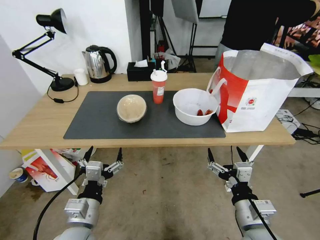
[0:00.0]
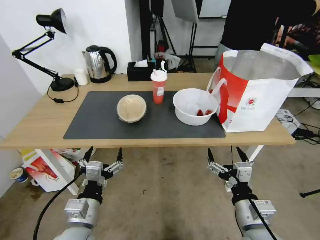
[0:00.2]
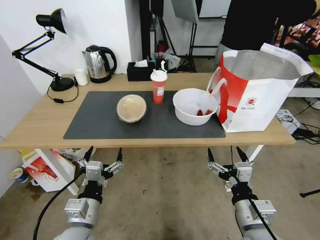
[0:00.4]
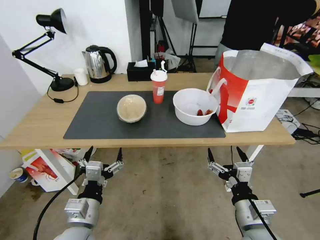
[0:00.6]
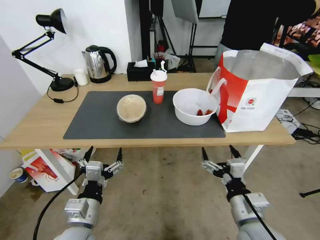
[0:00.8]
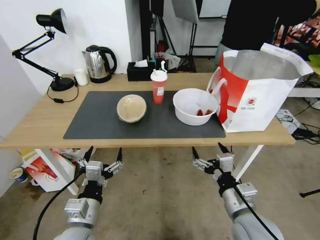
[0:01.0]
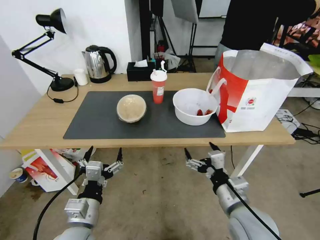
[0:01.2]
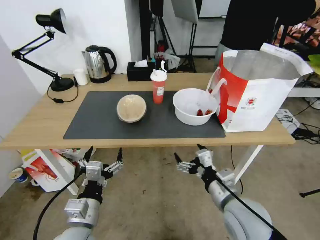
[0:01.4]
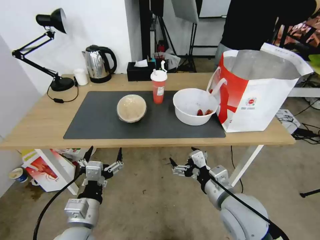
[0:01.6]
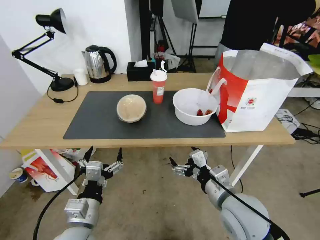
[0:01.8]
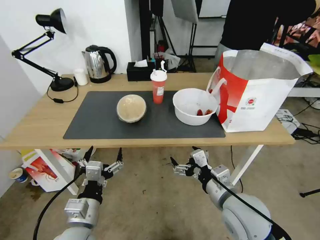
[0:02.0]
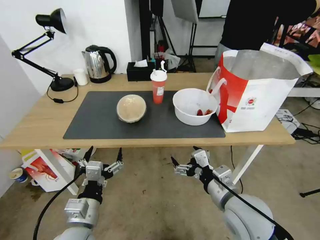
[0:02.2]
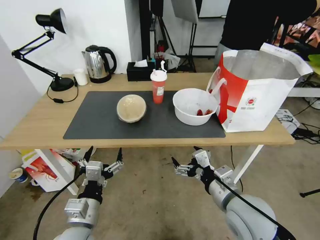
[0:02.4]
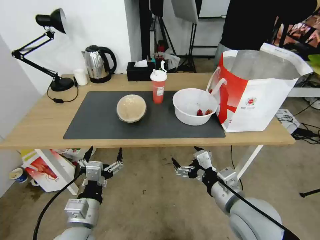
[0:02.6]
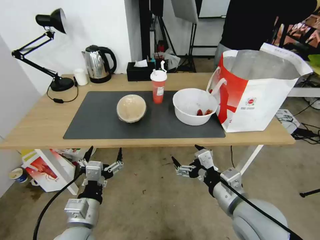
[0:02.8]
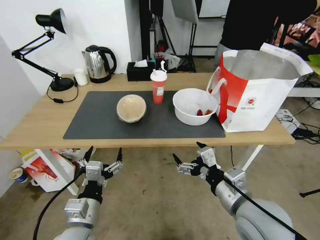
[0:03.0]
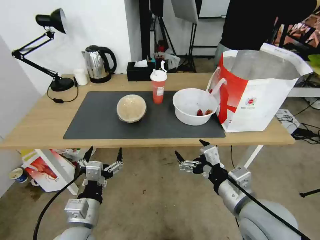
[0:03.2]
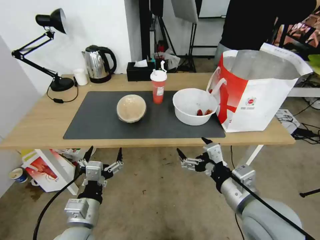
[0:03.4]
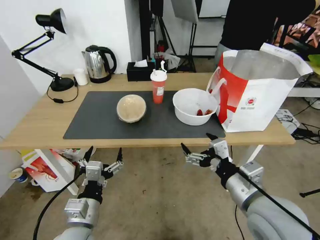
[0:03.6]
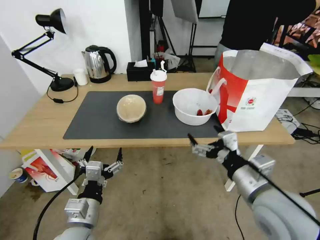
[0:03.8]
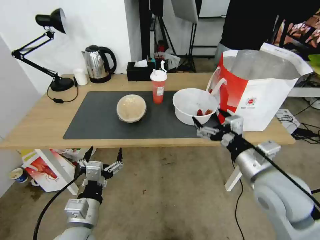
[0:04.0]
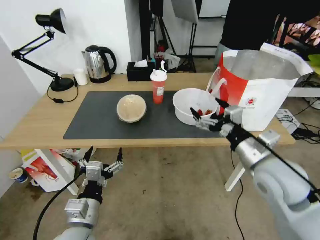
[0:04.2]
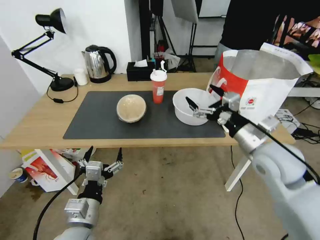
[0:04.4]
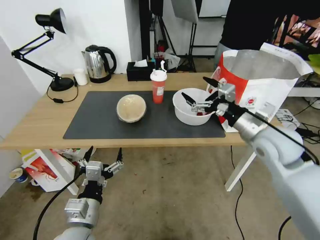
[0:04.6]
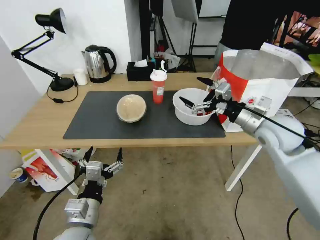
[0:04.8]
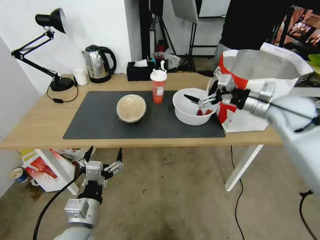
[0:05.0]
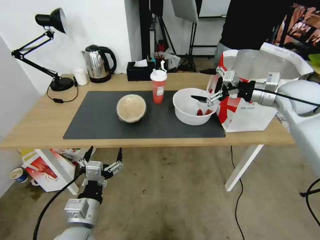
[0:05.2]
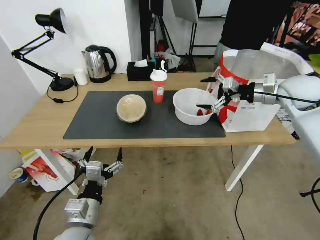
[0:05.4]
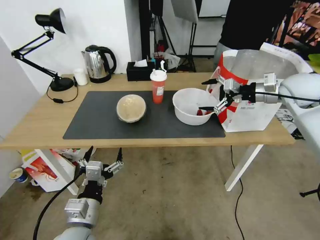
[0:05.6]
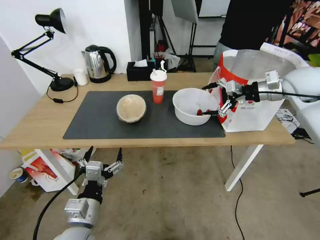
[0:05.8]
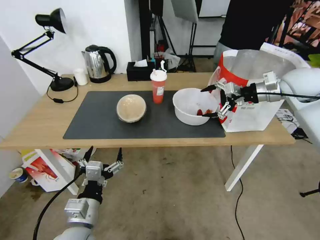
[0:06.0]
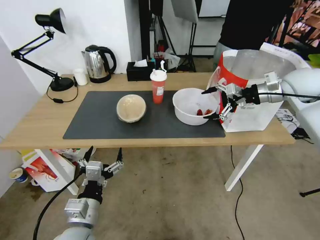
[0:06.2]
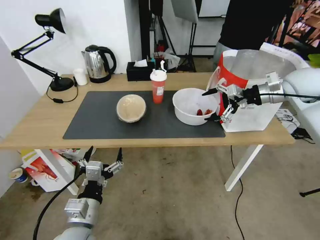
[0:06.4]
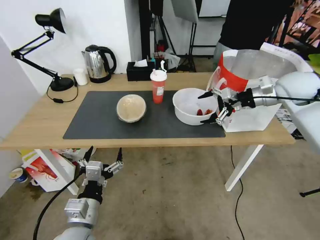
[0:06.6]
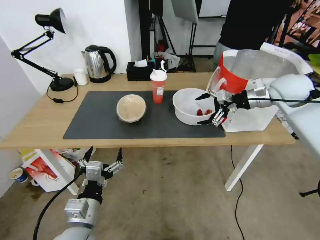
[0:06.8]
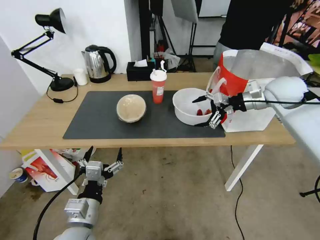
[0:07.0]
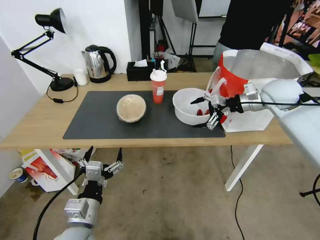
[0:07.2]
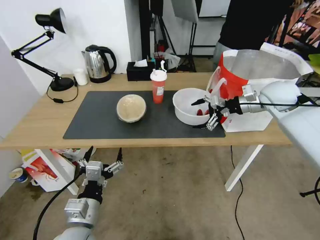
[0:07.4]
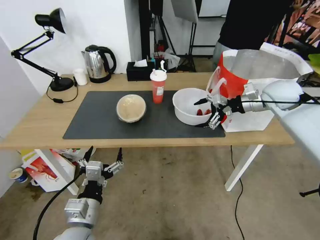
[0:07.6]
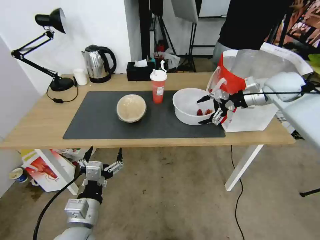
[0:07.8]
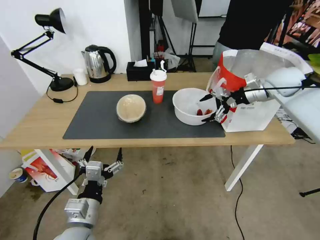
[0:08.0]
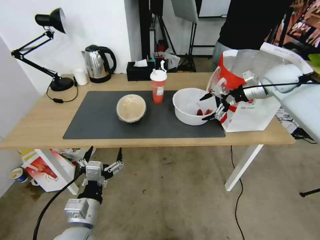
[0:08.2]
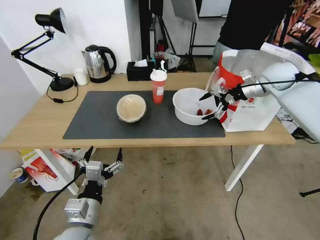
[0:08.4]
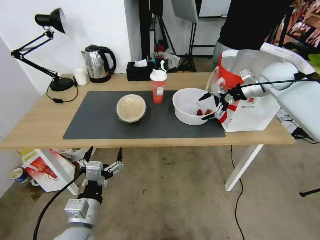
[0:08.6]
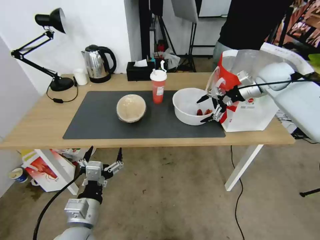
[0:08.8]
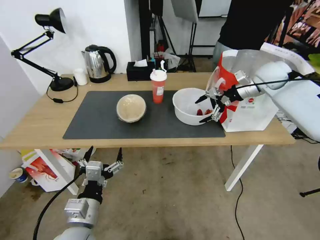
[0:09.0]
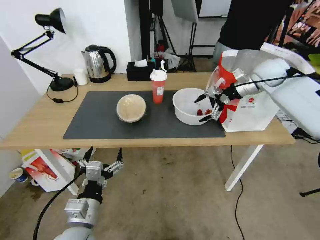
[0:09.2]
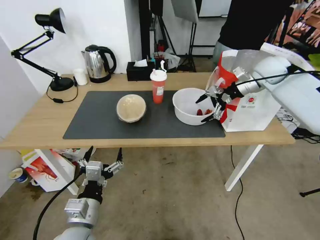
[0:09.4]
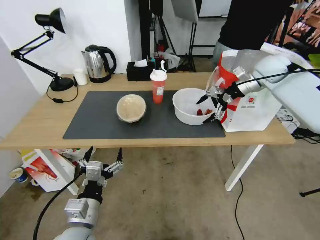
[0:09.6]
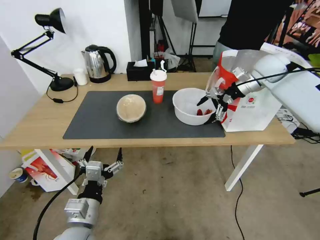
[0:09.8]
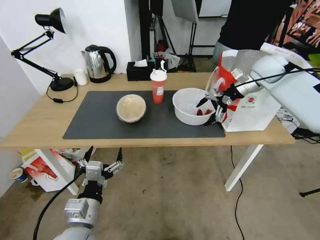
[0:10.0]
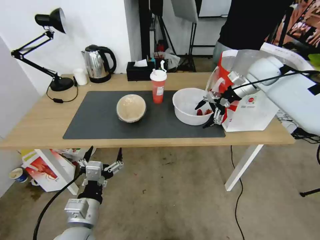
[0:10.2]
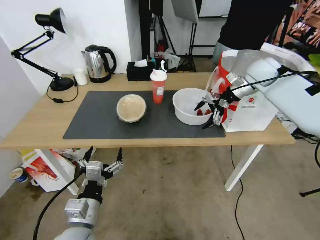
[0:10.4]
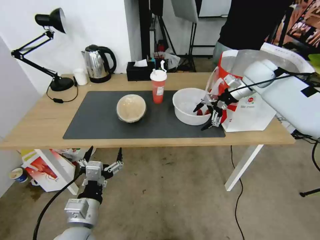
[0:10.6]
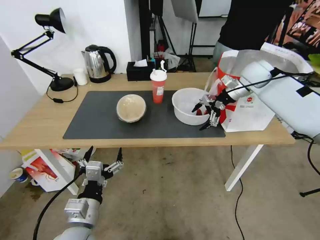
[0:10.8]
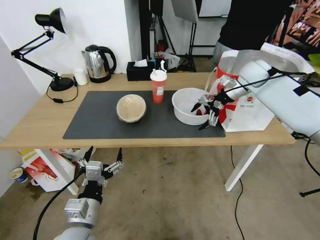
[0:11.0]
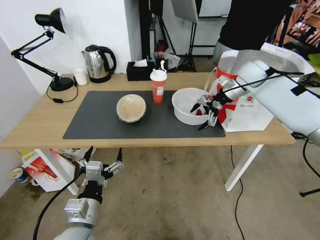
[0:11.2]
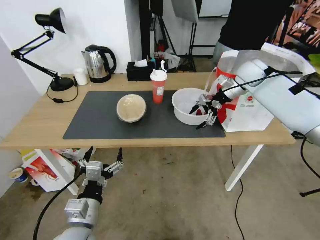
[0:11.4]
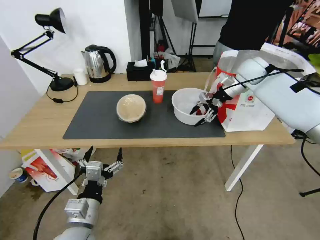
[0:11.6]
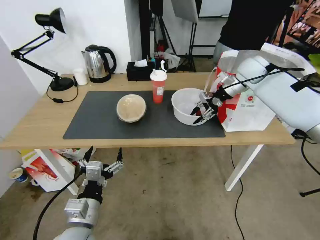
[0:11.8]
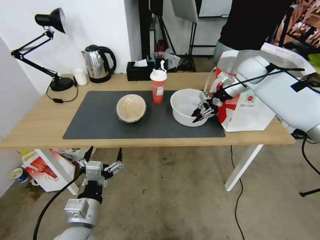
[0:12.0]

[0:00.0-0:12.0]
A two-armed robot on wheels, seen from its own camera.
Task of the whole recording: Pick up the trash from the table and place it into the takeout bag.
0:01.6 to 0:03.0: The right gripper shifts by some 5 cm.
0:03.0 to 0:04.4: The right gripper shifts roughly 15 cm forward, to the right and upward.
0:04.4 to 0:06.0: The right gripper shifts some 25 cm forward, to the right and upward.
0:06.0 to 0:07.6: The right gripper shifts by roughly 5 cm.
0:07.6 to 0:09.0: The right gripper is displaced forward by about 5 cm.
0:09.0 to 0:10.4: There are only small adjustments of the grippers.
0:10.4 to 0:12.0: The right gripper closes up.

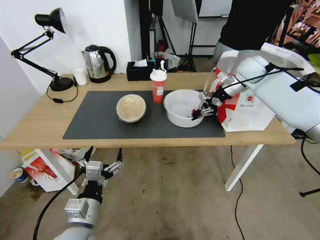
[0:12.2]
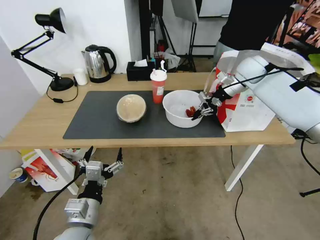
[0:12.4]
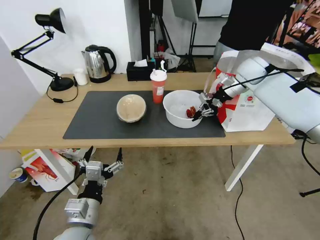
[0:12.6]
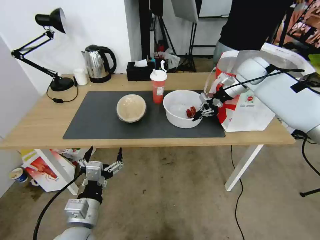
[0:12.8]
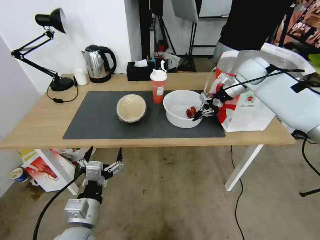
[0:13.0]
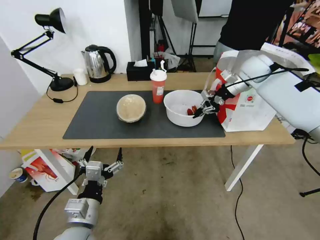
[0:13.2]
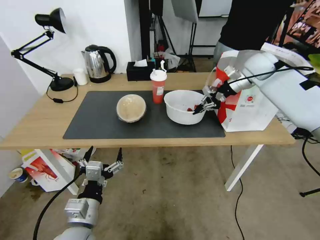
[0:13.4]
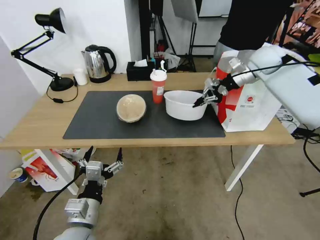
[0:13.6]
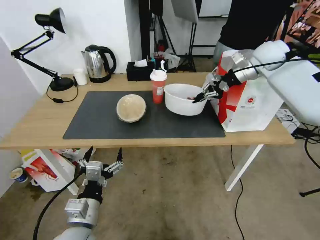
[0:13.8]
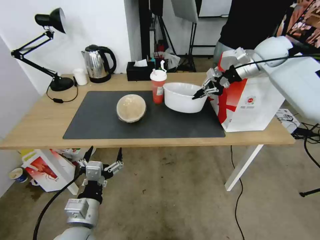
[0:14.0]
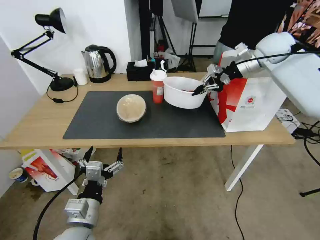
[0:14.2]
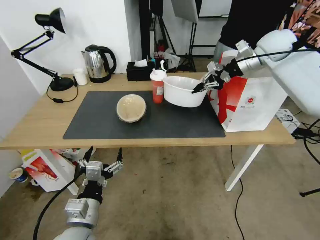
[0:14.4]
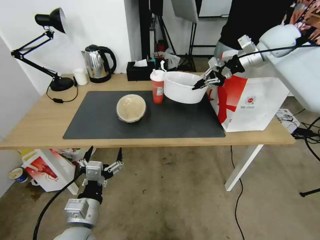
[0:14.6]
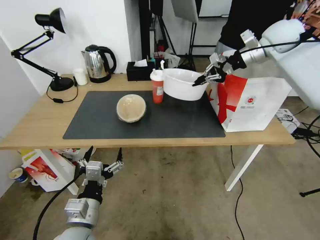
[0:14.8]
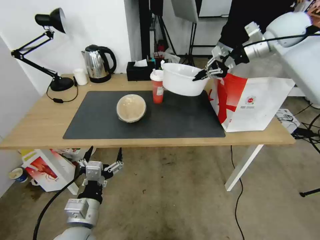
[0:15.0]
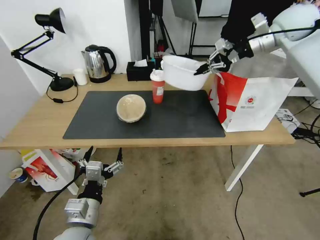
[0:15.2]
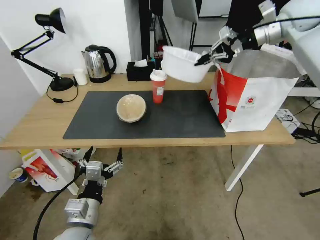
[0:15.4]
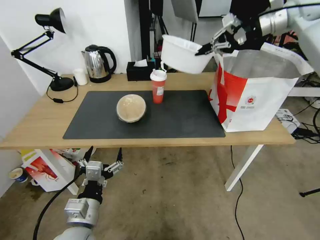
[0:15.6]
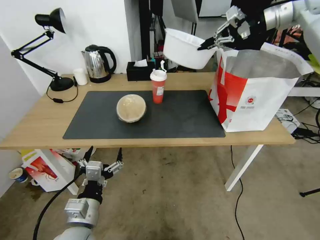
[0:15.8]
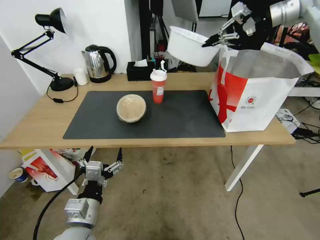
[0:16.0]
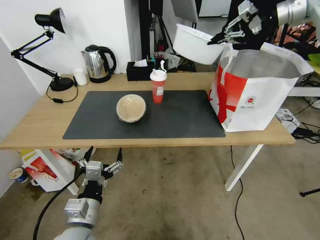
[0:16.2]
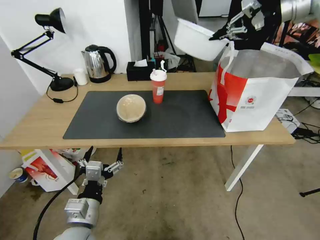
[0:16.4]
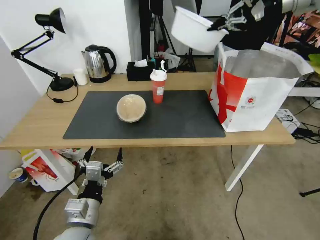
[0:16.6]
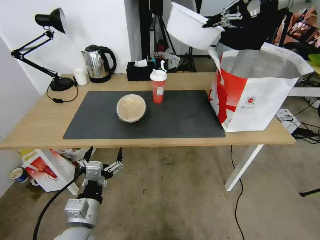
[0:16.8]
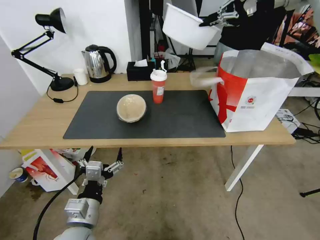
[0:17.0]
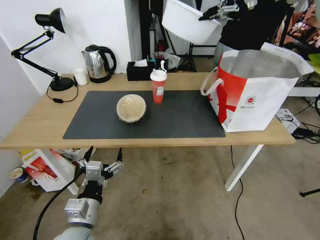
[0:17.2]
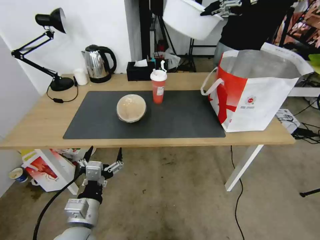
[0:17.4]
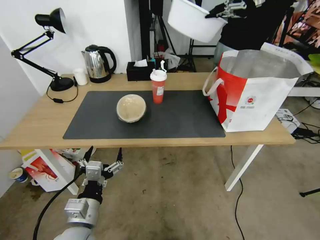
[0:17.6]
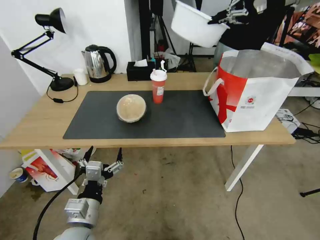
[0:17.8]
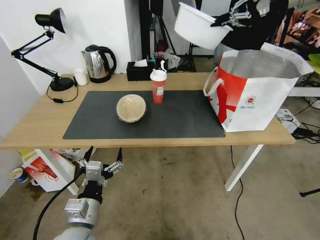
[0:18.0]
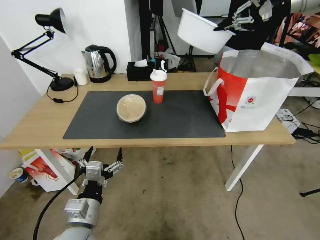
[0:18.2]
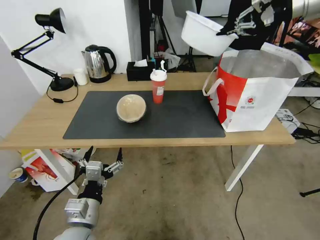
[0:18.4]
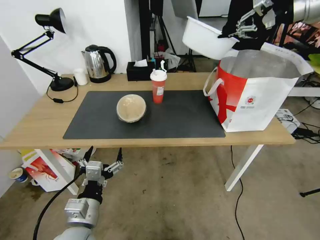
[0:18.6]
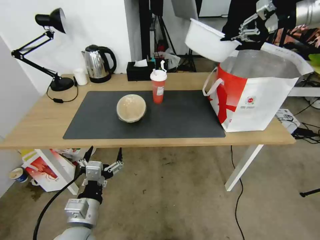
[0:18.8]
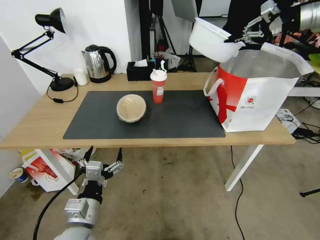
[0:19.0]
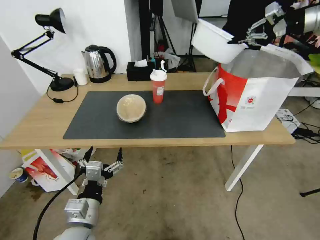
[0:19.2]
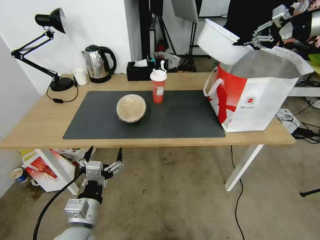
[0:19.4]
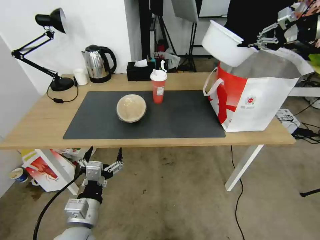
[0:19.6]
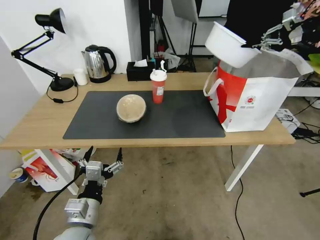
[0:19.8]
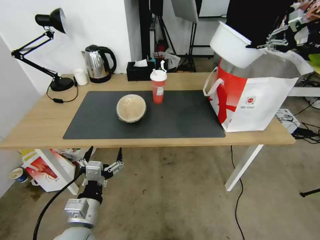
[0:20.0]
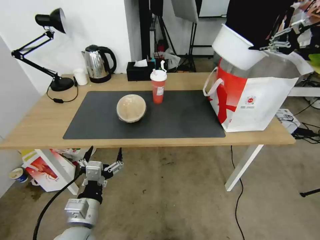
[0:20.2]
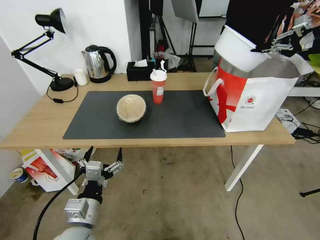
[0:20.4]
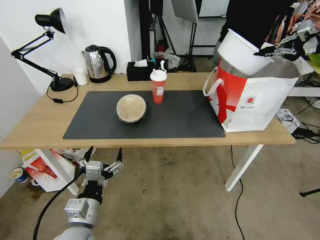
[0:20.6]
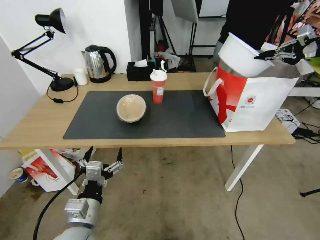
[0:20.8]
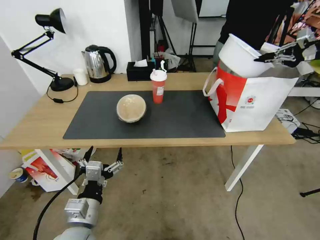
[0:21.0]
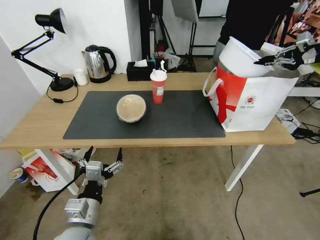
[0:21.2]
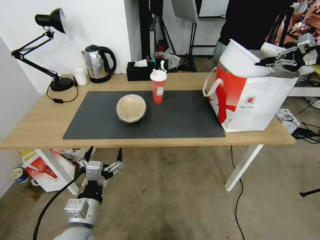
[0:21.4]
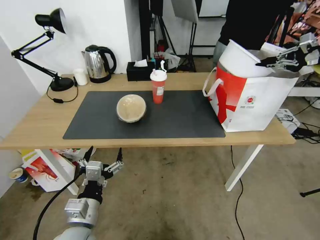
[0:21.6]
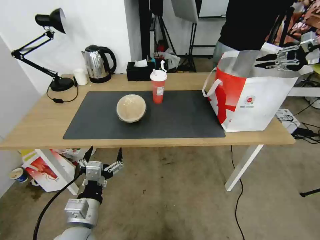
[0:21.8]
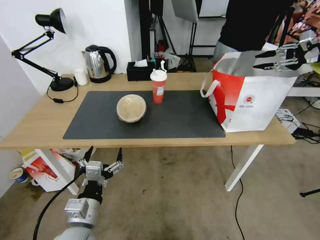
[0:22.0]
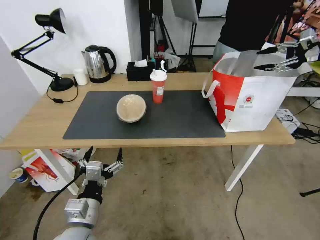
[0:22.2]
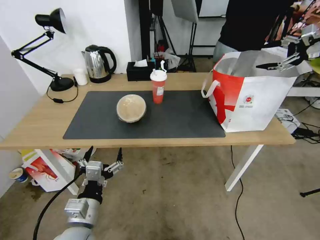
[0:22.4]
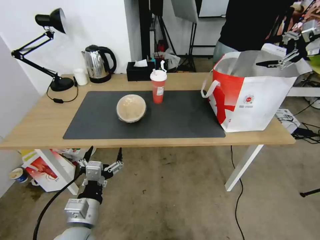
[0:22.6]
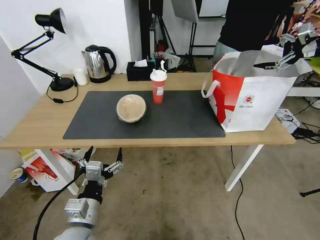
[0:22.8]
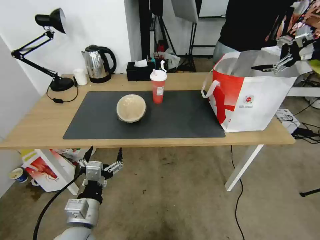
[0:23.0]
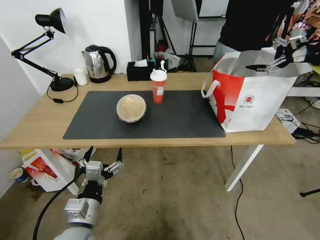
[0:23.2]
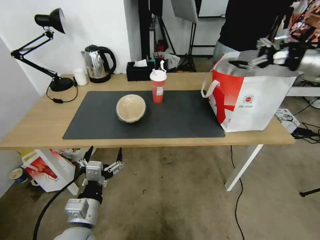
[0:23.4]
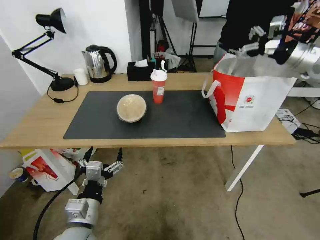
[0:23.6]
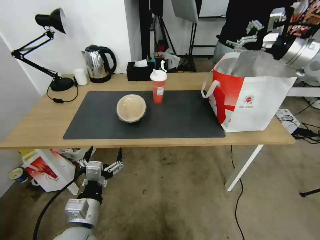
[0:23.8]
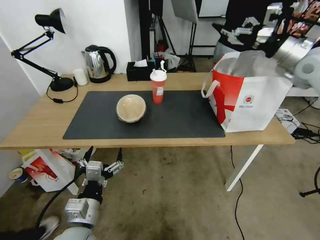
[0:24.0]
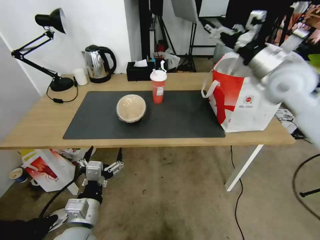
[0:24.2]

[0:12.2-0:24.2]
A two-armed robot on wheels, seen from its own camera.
Task of the whole recording: Pick up the trash from the table and place it into the takeout bag.
0:12.2 to 0:13.8: The right gripper shifts some 5 cm upward.
0:13.8 to 0:15.2: The right gripper is displaced upward by some 10 cm.
0:15.2 to 0:16.6: The right gripper moves upward, some 10 cm.
0:16.6 to 0:18.2: There are only small adjustments of the grippers.
0:18.2 to 0:19.8: The right gripper travels to the right and downward by about 15 cm.
0:19.8 to 0:21.2: The right gripper heads downward, covering about 5 cm.
0:21.2 to 0:22.6: The right gripper opens its fingers.
0:22.6 to 0:24.2: The right gripper is displaced to the left by some 25 cm.
